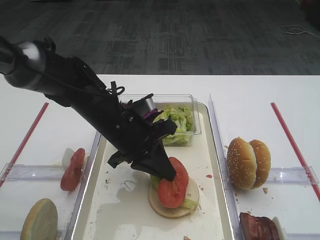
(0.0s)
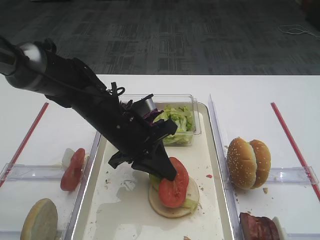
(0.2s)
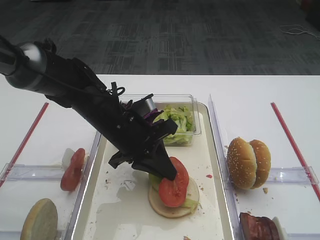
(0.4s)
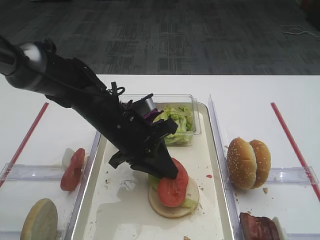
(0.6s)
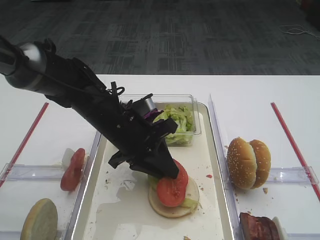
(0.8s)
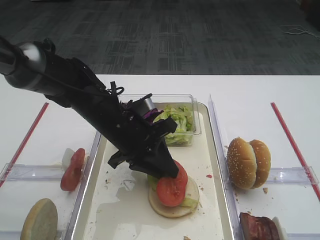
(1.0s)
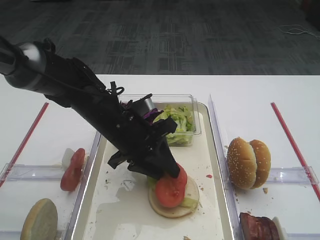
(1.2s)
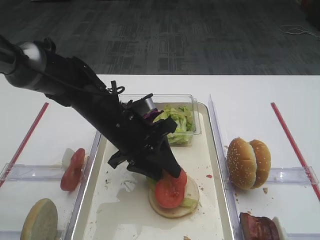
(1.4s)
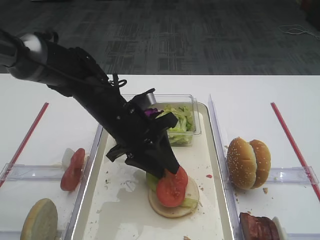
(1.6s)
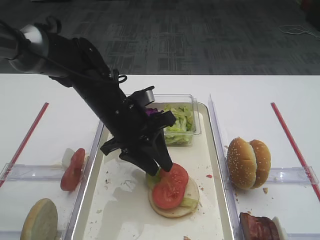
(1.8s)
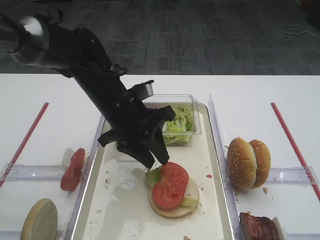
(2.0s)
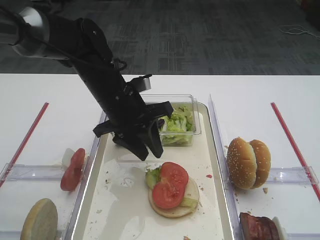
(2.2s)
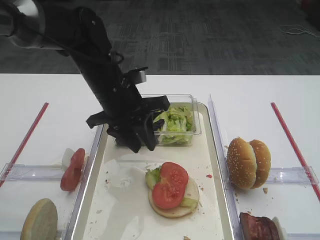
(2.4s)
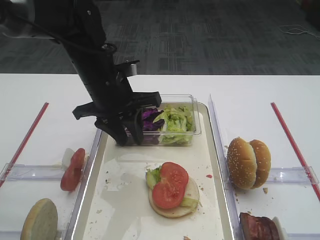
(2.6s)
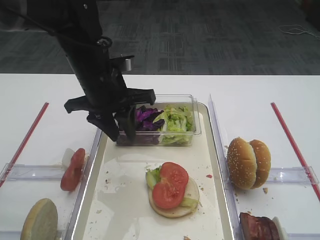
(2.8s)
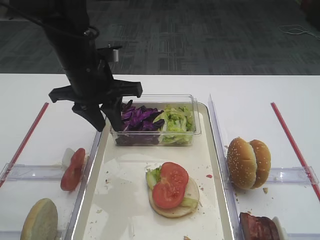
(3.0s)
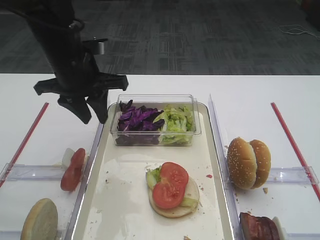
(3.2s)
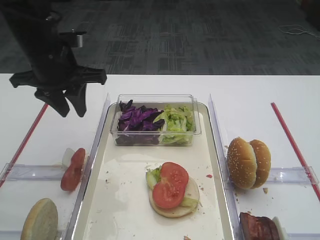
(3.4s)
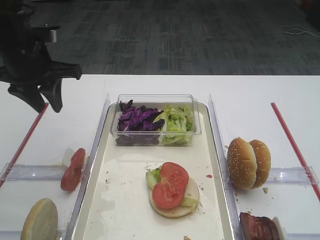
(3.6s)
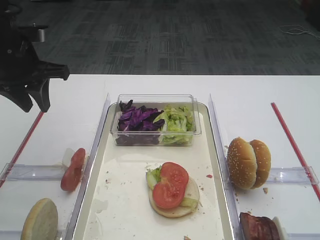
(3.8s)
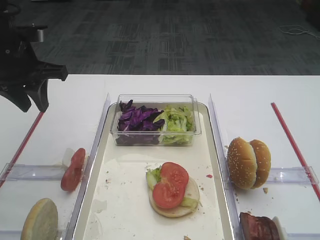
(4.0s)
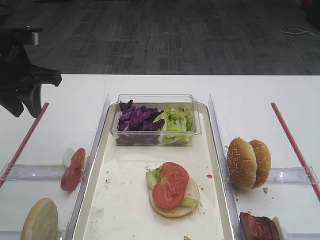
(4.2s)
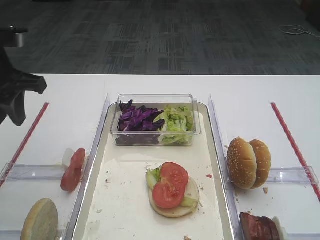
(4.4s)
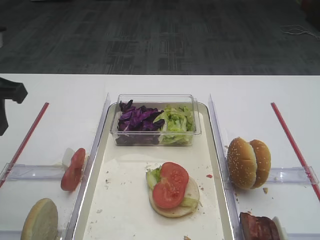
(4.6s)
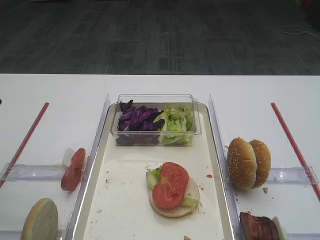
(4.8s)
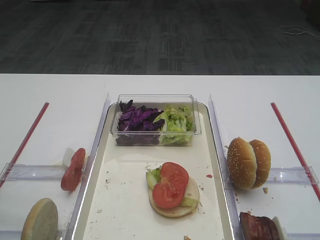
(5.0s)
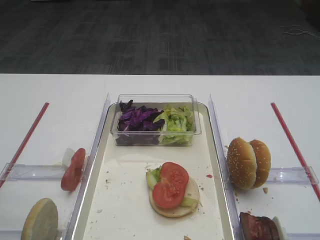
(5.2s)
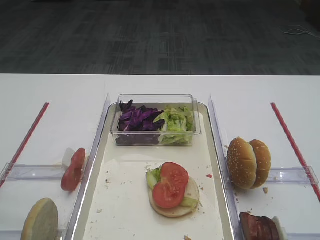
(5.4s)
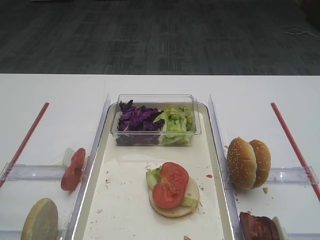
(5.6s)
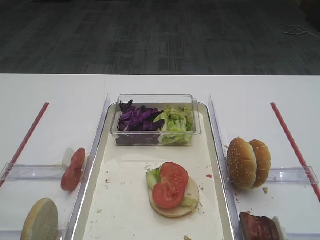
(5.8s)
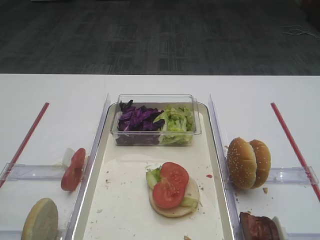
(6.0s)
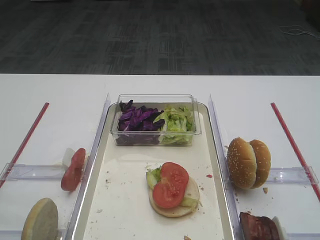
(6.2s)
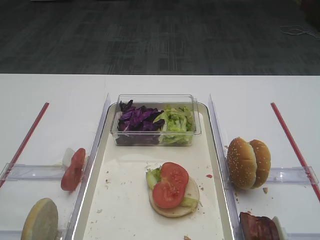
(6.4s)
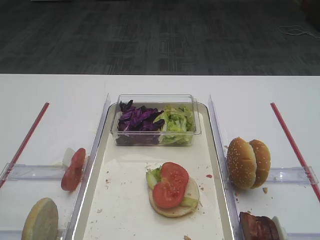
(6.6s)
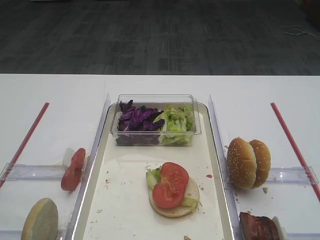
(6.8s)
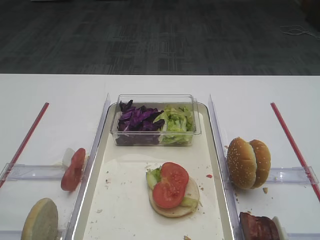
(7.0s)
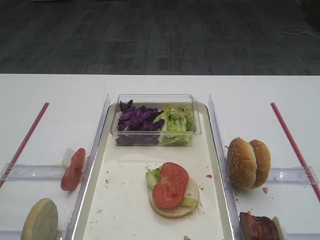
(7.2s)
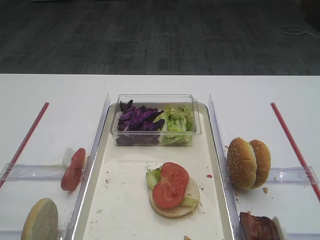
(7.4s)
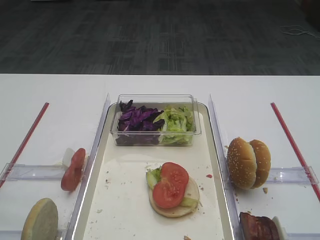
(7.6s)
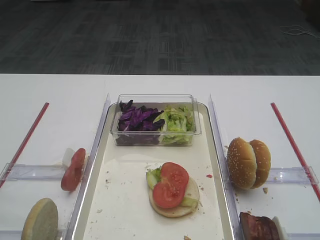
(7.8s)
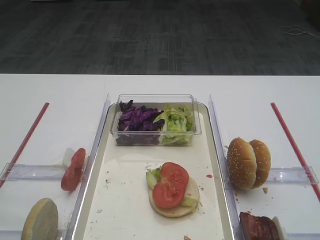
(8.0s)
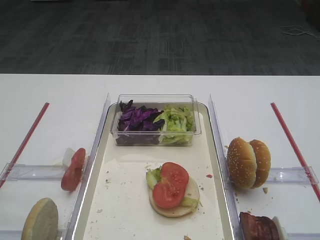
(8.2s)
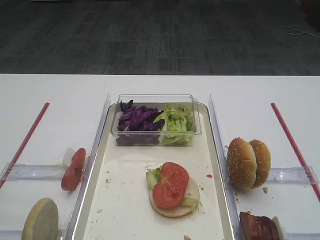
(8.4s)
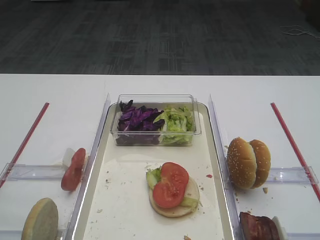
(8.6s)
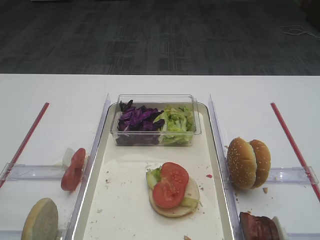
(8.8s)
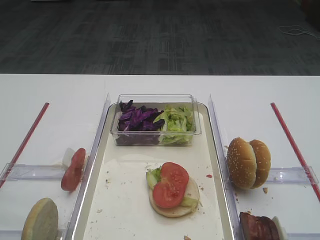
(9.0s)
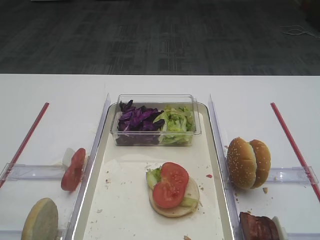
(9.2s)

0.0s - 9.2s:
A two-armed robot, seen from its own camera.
Step, 0.0s - 2.0s: Place the tomato slice on the lettuce leaf with the left gripper.
0.0s - 1.6s: The left gripper opens its fingers.
1.6s - 3.0s: The left gripper heads upward, covering approximately 10 cm.
3.0s - 4.6s: The left gripper is displaced to the left and backward by about 15 cm.
4.6s - 6.2s: The left gripper goes about 25 cm backward.

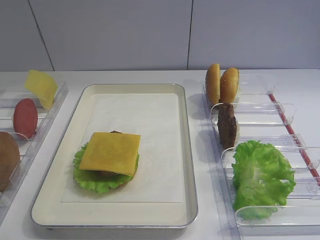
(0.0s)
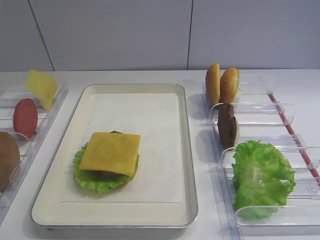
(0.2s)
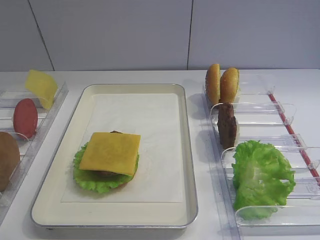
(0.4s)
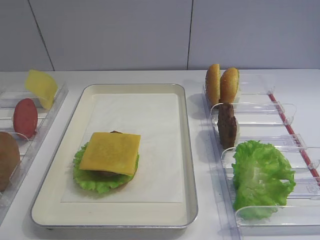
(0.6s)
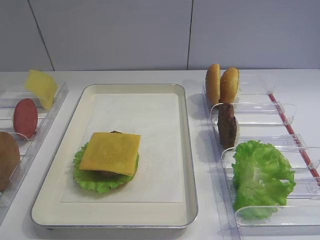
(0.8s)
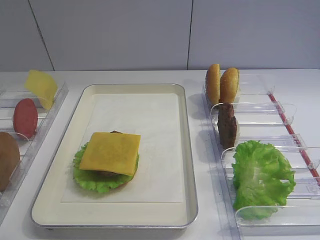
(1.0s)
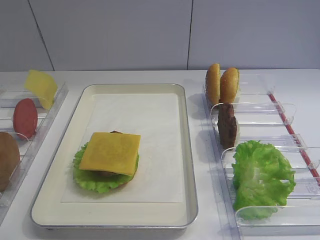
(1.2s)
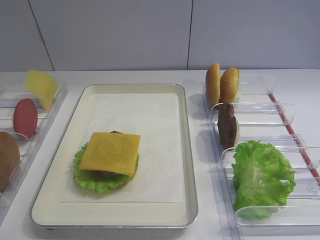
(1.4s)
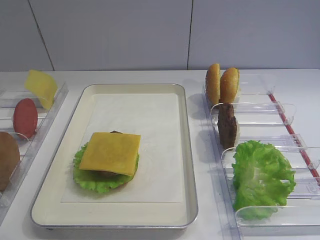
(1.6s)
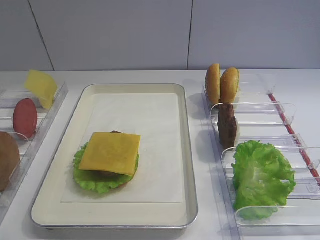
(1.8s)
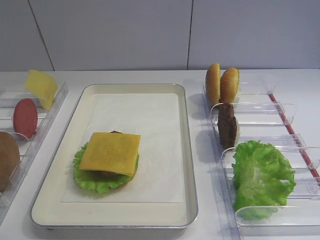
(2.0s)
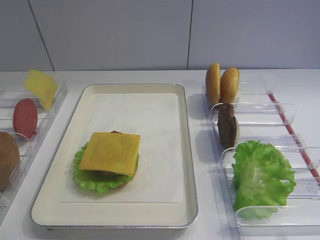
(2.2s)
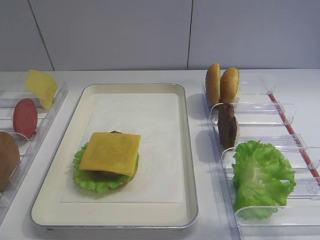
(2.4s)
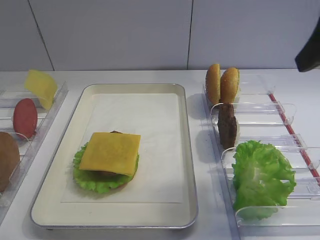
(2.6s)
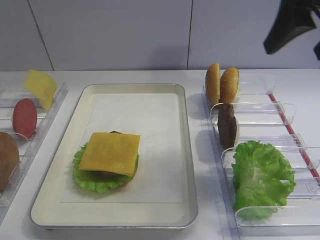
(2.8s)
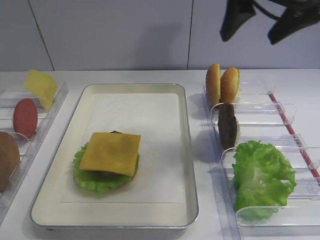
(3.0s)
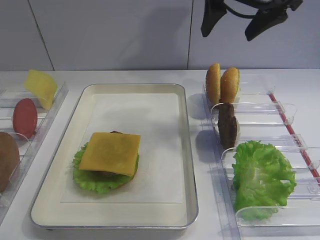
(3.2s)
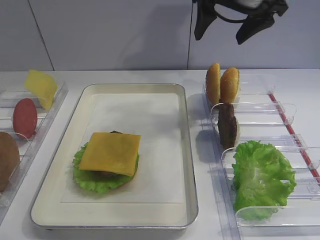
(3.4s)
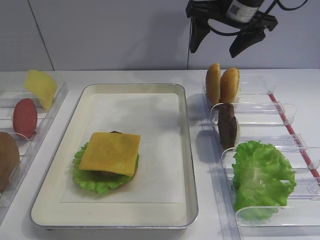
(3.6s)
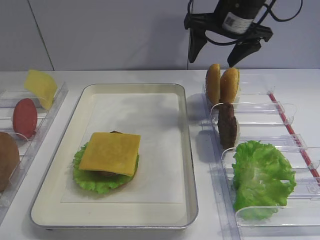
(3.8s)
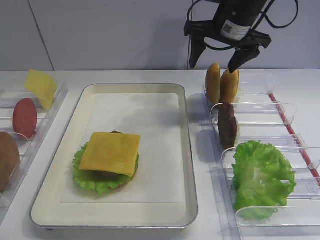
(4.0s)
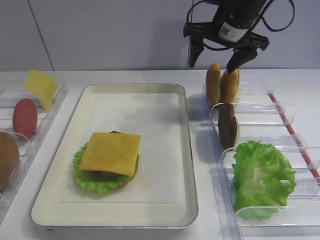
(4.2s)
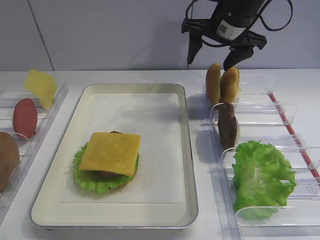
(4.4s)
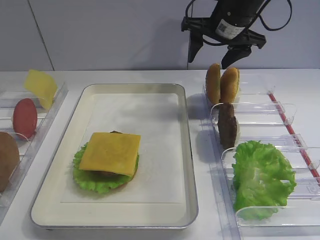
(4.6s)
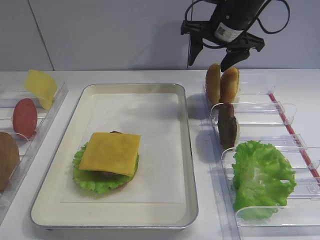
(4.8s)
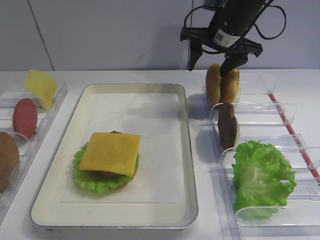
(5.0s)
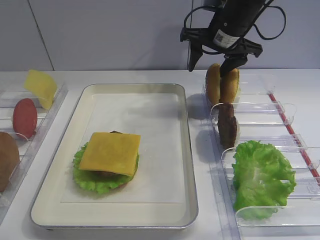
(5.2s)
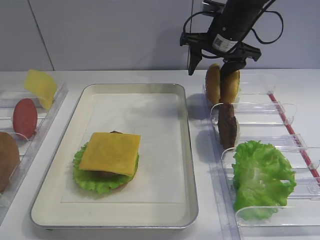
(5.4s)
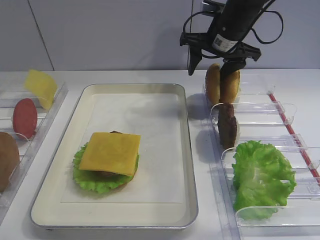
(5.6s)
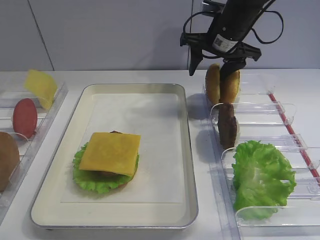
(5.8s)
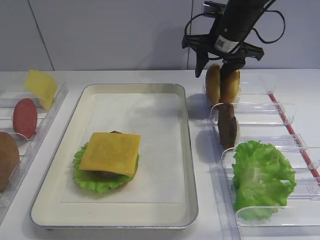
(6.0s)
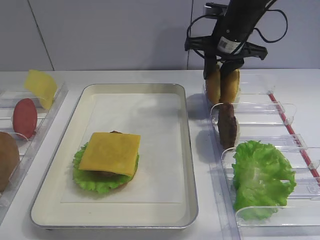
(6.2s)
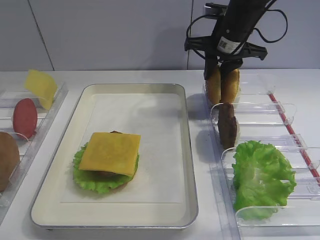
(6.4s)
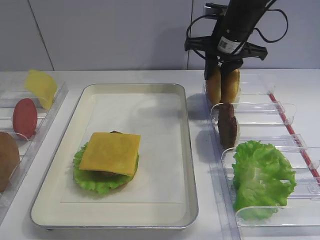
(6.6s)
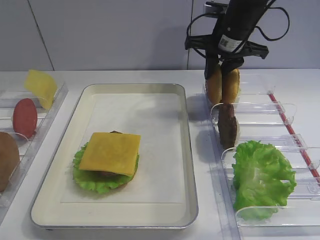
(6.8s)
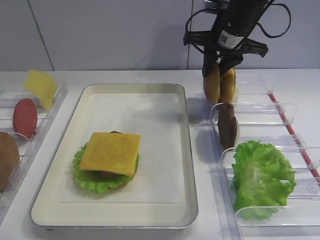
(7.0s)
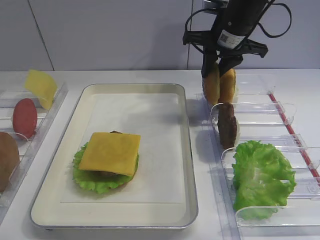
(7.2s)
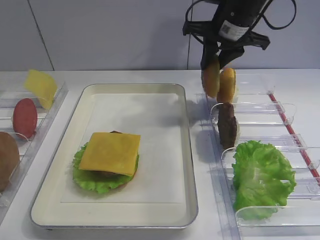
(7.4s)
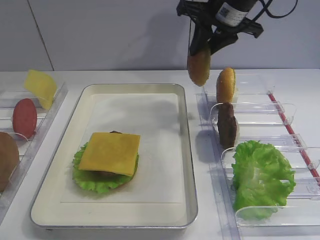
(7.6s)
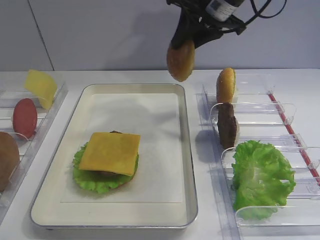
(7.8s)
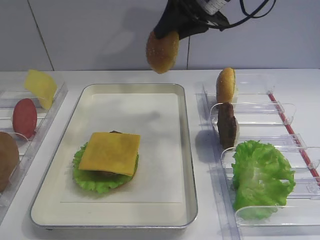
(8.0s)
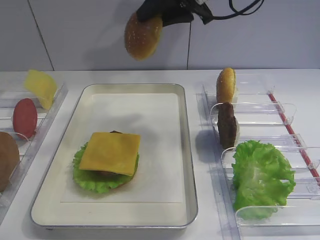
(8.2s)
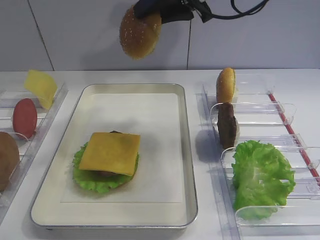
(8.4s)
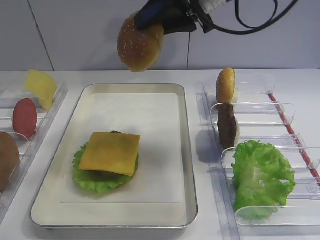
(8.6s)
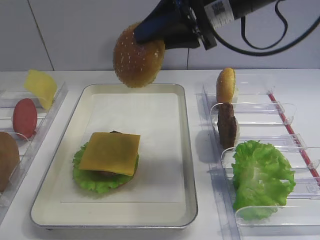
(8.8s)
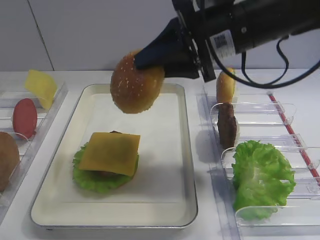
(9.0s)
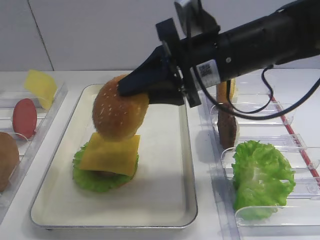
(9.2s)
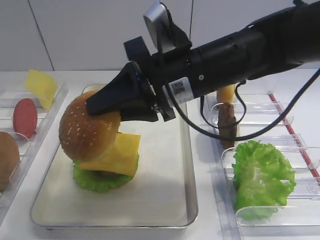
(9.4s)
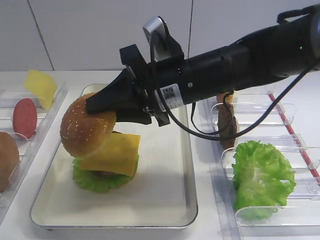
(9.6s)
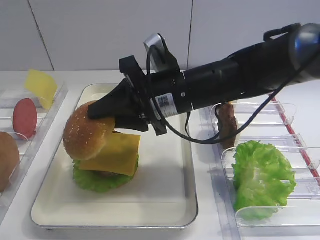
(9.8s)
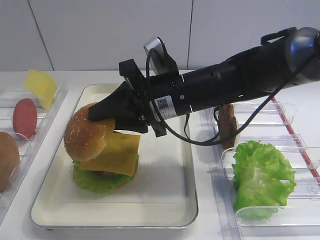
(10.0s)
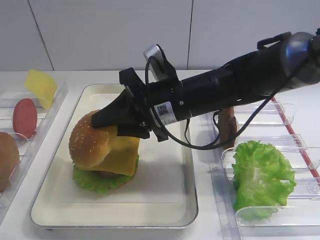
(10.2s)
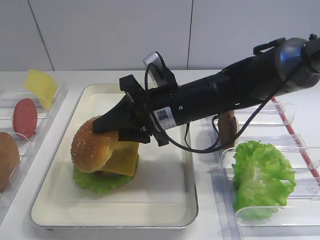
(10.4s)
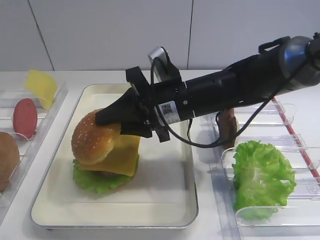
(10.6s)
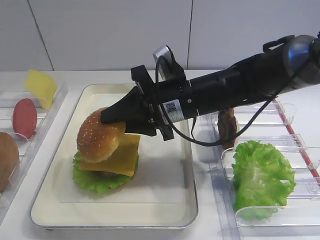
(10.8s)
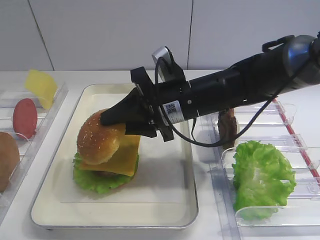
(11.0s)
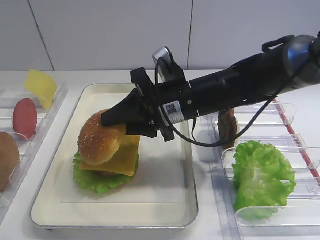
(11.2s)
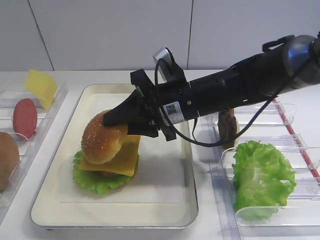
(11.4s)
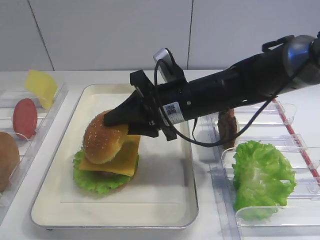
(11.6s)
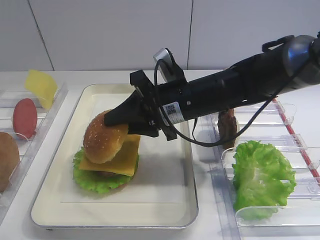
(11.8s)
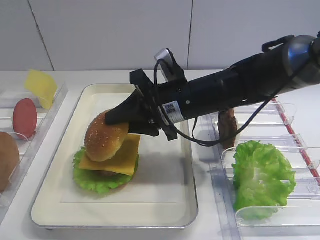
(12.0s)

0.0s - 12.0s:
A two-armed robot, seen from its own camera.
Step, 0.0s - 7.4s: Pick up the hamburger lid with the right gripper.
1.6s - 3.0s: The right gripper shifts about 30 cm forward.
3.0s - 4.4s: The right gripper shifts approximately 15 cm forward and downward.
4.4s - 6.0s: The right gripper closes up.
6.0s - 7.6s: The right gripper moves upward, about 5 cm, and closes its fingers.
7.6s - 9.0s: The right gripper heads backward, covering approximately 10 cm.
9.0s - 10.4s: The right gripper travels downward and to the left by about 15 cm.
10.4s - 12.0s: The grippers move only a little.

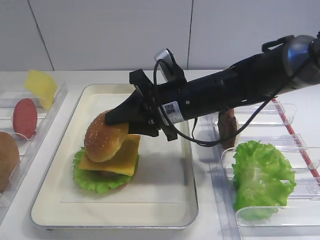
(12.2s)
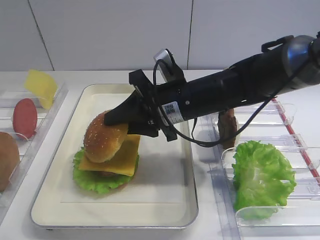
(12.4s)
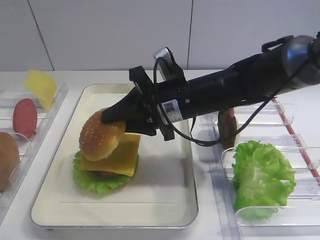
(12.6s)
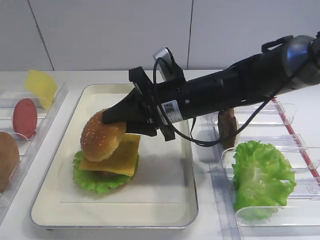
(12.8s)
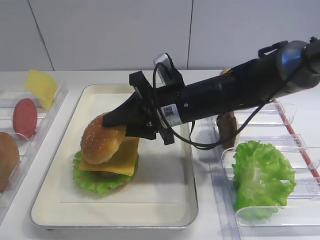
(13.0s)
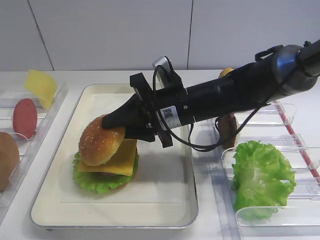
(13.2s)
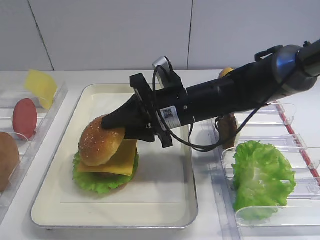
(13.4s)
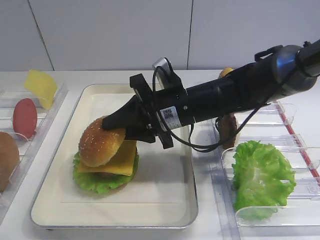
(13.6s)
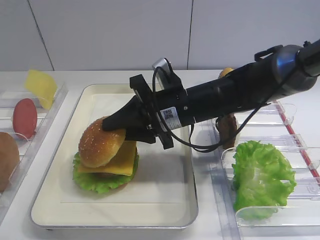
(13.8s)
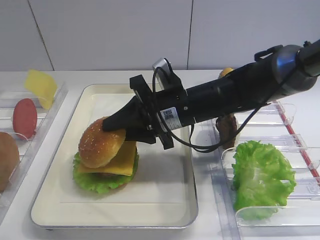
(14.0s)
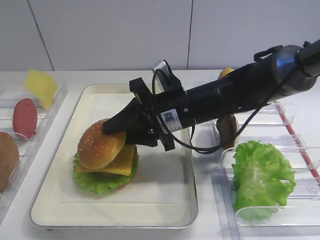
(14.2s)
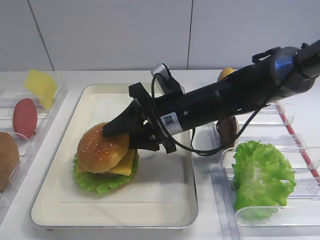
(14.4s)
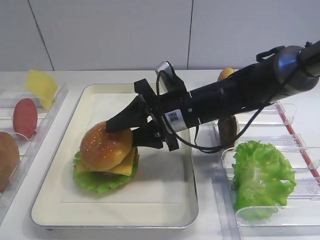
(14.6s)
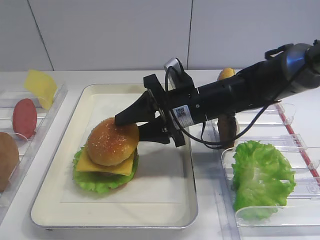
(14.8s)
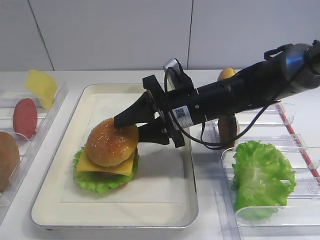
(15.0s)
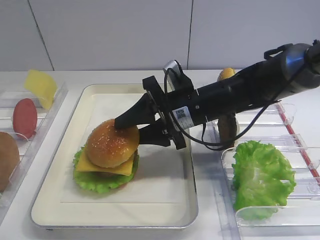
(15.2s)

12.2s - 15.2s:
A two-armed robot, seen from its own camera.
12.2s - 15.2s: The grippers stay close to where they were, moving slightly.
